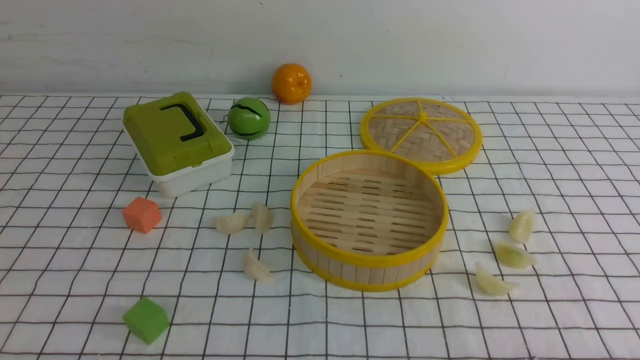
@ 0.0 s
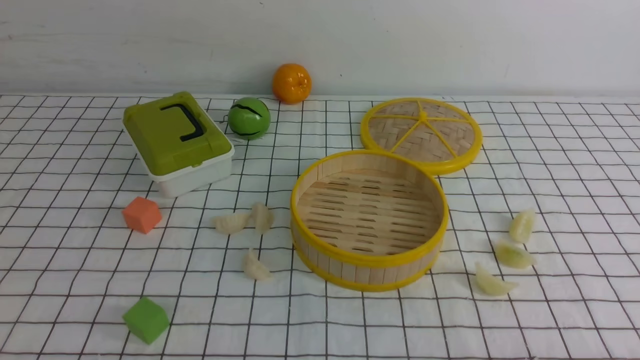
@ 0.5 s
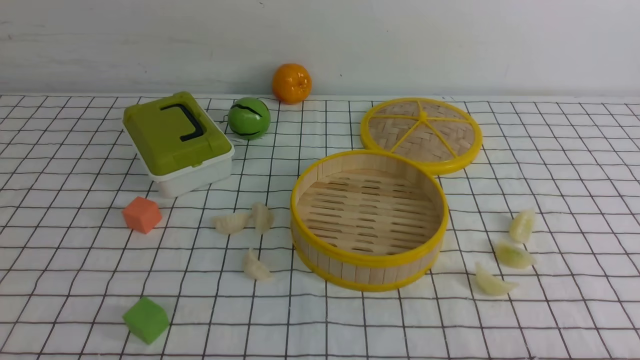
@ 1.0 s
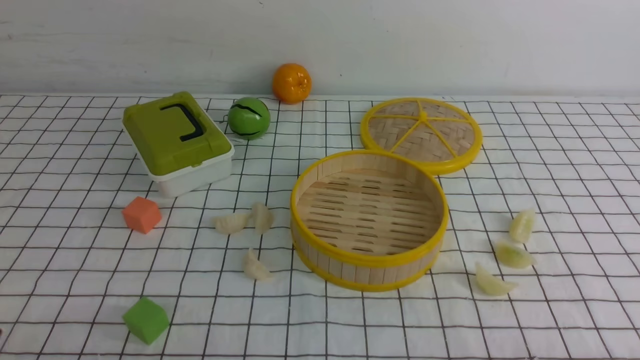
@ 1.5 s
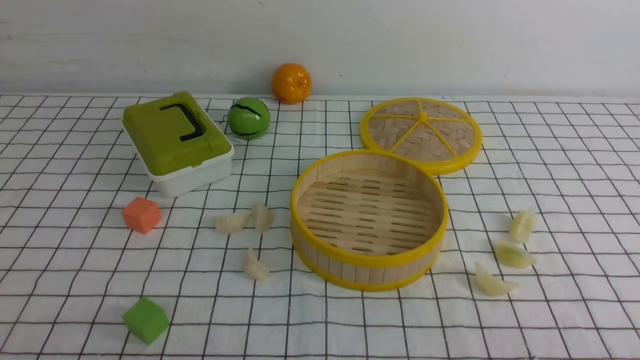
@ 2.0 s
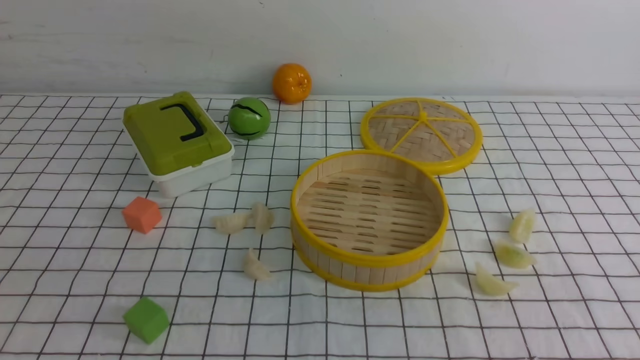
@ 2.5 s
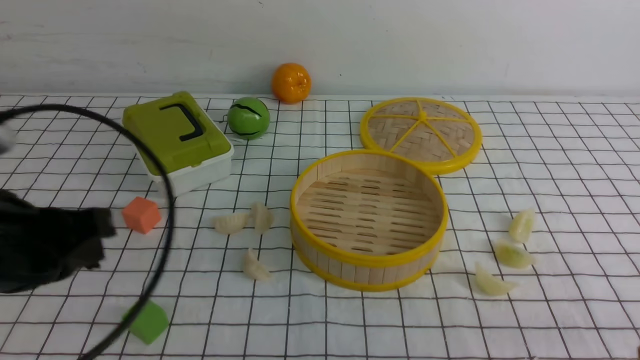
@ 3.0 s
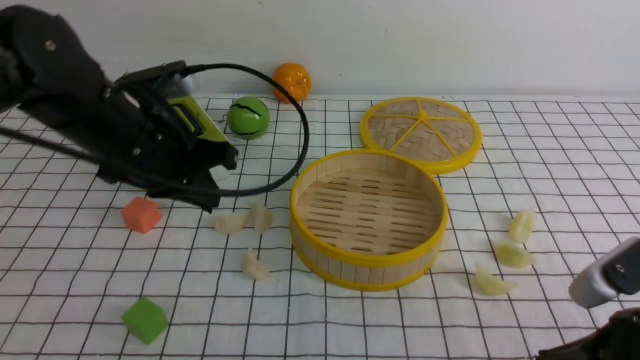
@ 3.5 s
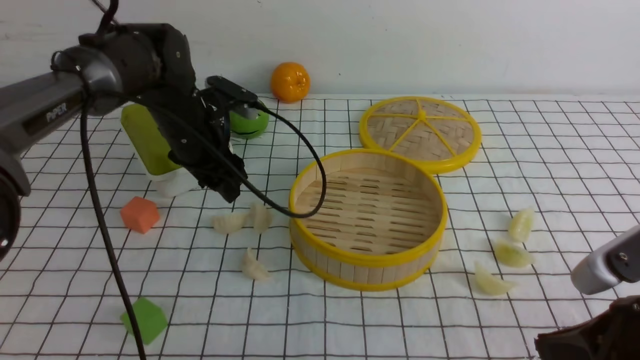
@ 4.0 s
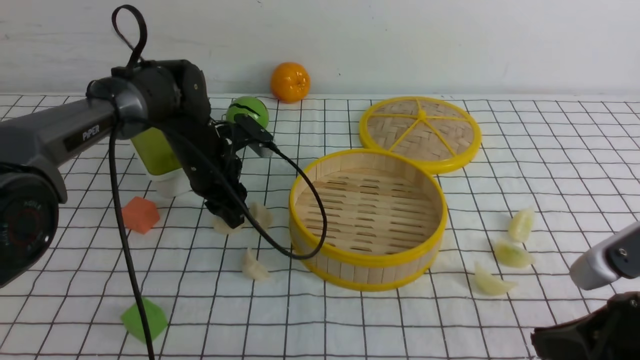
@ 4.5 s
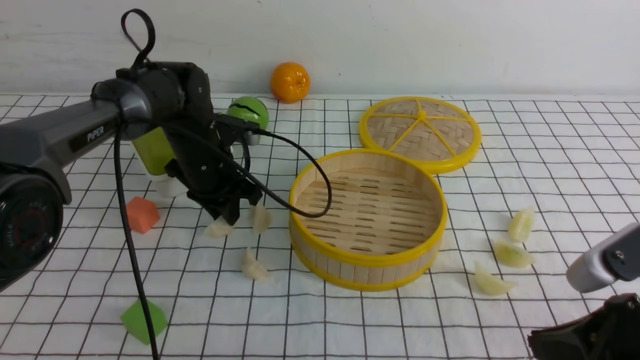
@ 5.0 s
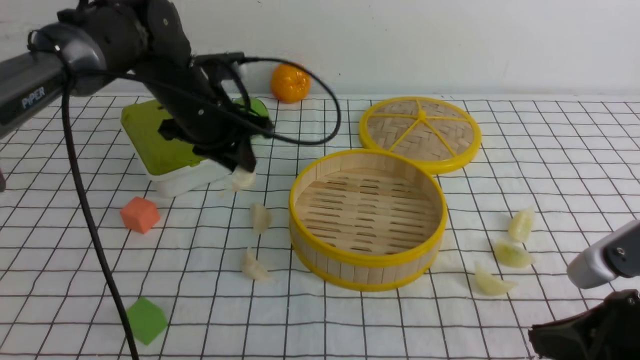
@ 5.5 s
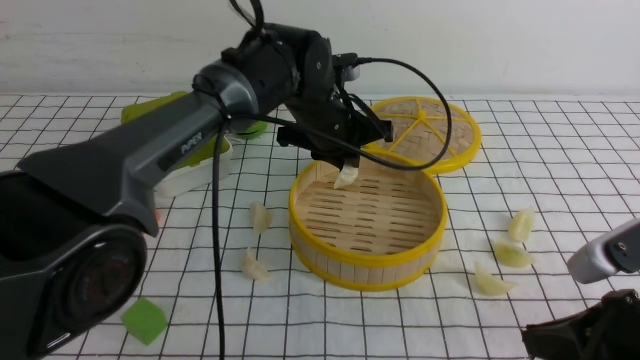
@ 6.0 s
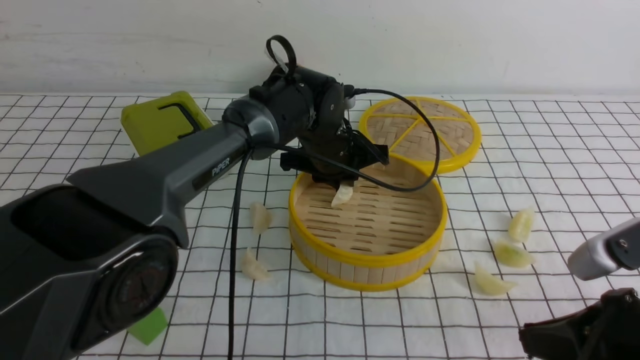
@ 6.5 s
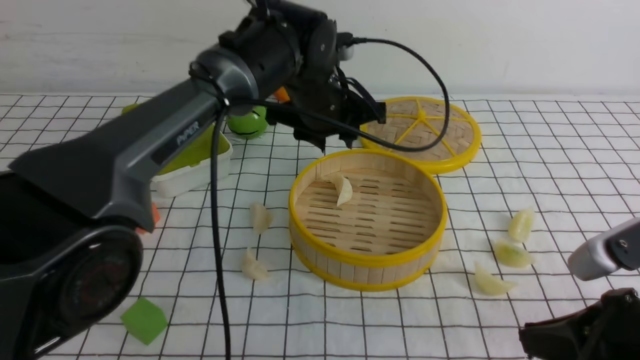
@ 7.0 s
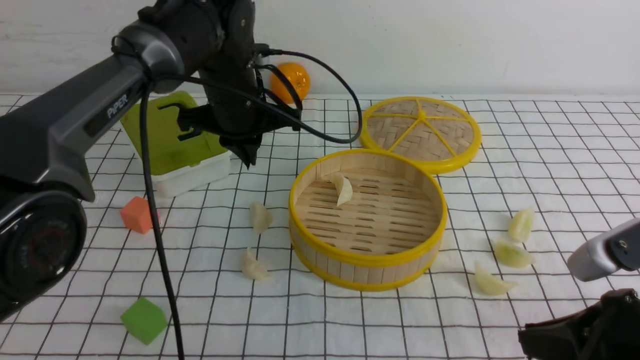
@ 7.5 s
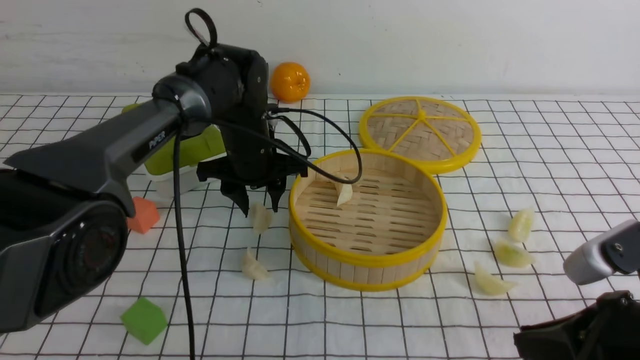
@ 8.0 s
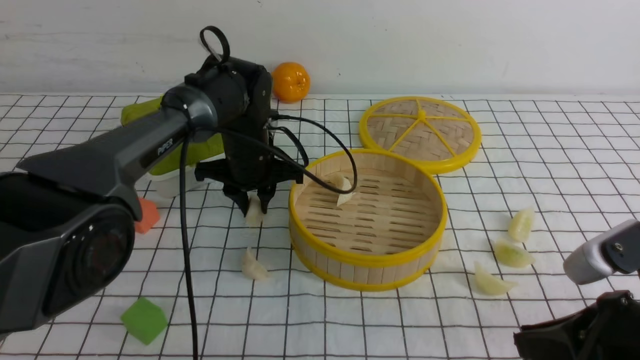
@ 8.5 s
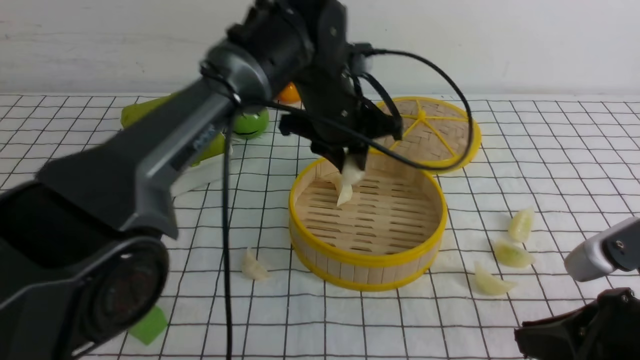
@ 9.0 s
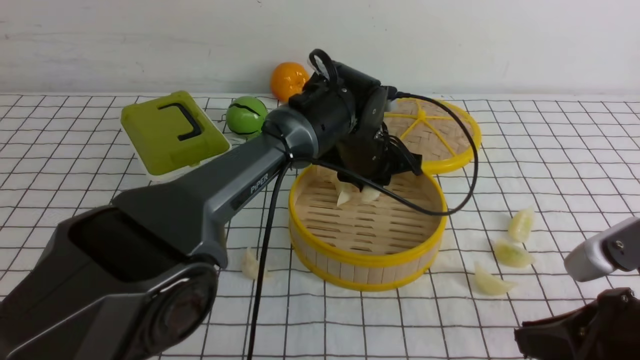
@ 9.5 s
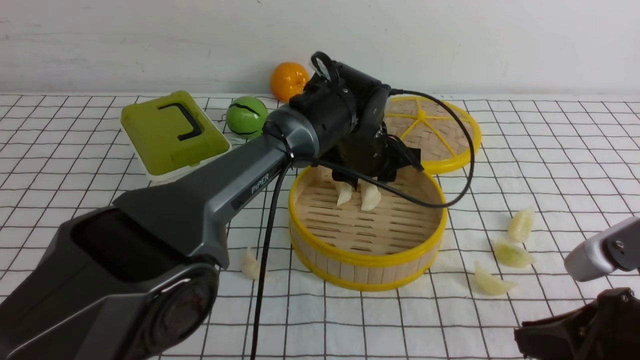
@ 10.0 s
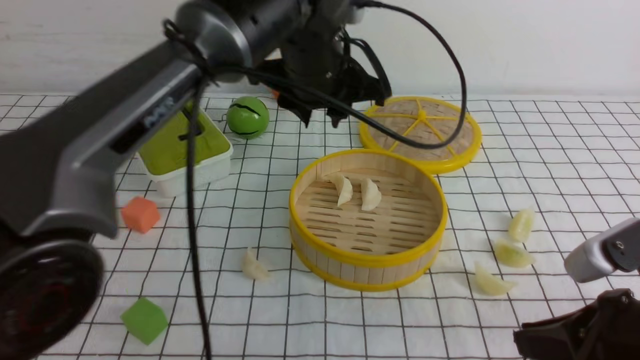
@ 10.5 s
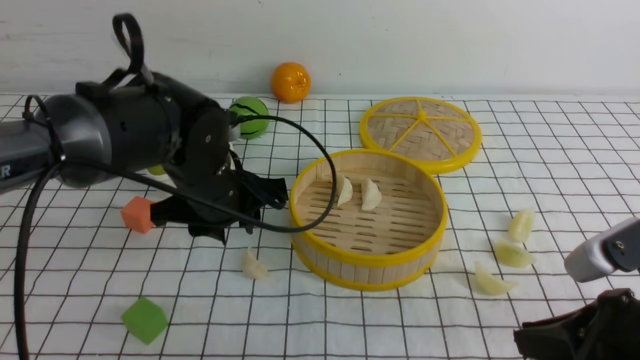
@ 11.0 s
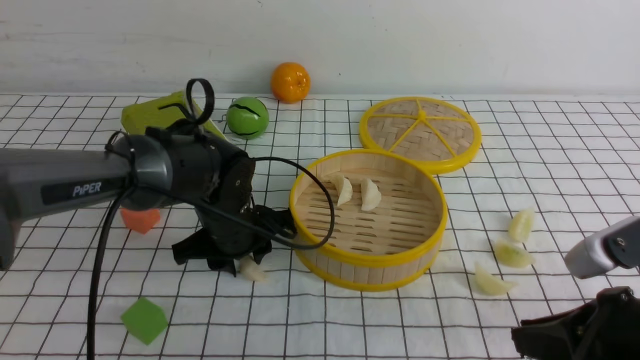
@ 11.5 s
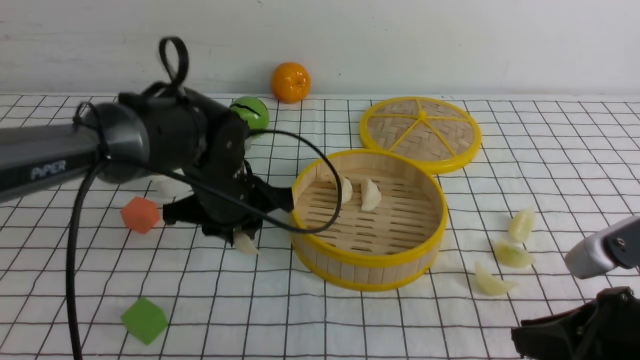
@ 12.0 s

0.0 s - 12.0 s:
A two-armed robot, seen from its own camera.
Task of the whole recording: put the dumplings into the steamer on the table with the white tablecloth.
Step, 0.0 s - 5.0 s: use the left arm to grab a dumpling.
Step, 6.0 s - 7.0 s: use the left arm to put the dumpling into the steamer.
Step, 7.5 s - 8.5 s: use the left arm to grab a dumpling.
Step, 9.0 s - 10.0 s: use the left arm to put the dumpling into the steamer.
2.0 s - 4.0 s: The left gripper shifts about 40 cm forward, and opens its fingers, while the right gripper moves forward and to the left, some 15 cm, and closes up.
4.0 s - 6.0 s: The left gripper goes some 15 cm to the right, and closes its fingers.
6.0 s - 8.0 s: The left gripper moves to the left and downward, approximately 10 cm, and opens its fingers.
8.0 s - 10.0 s: The left gripper is displaced to the right by roughly 15 cm.
10.0 s - 12.0 s: The left gripper swings up and down, some 15 cm each way, with 2 reversals, and closes up.

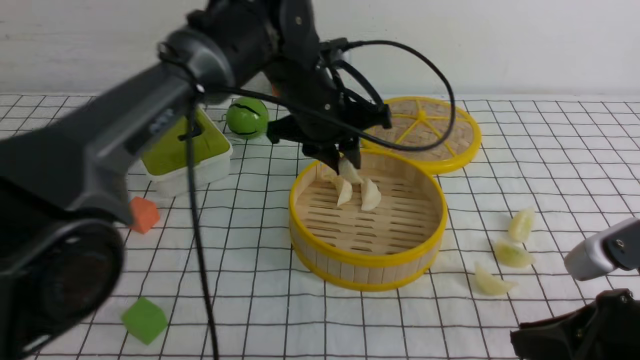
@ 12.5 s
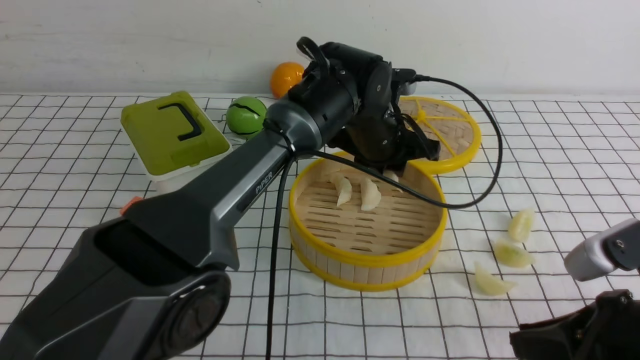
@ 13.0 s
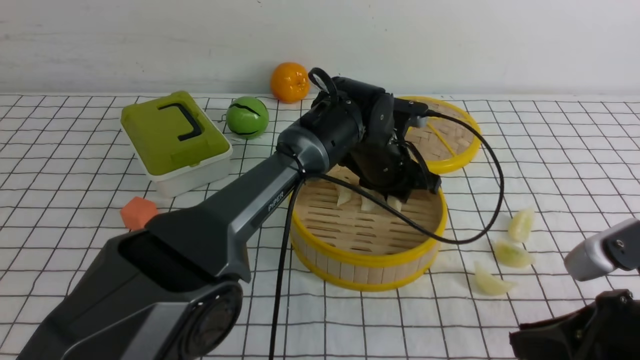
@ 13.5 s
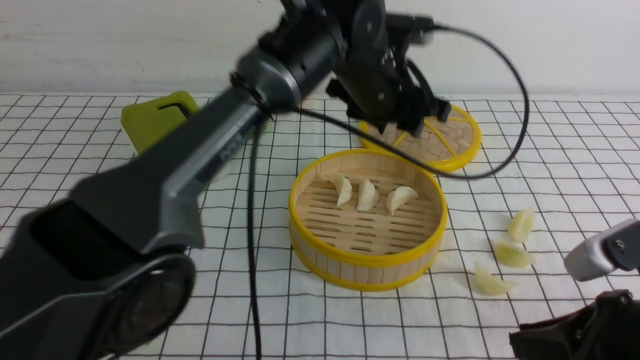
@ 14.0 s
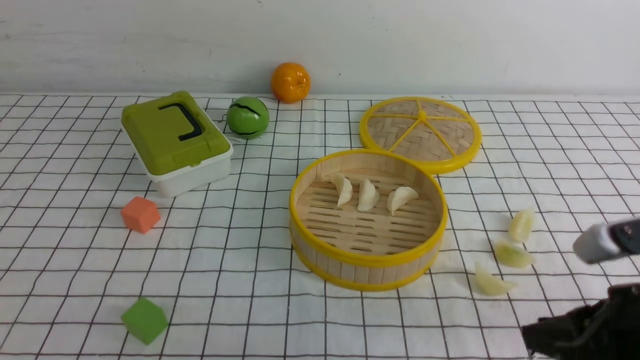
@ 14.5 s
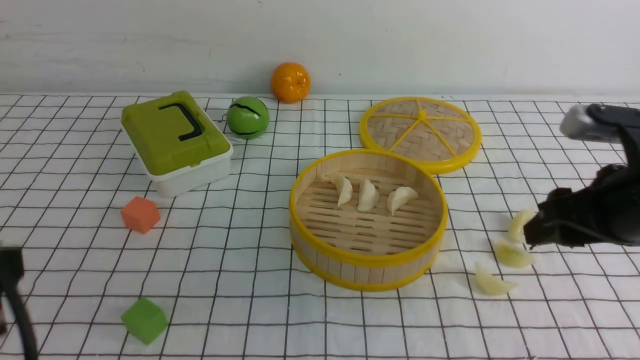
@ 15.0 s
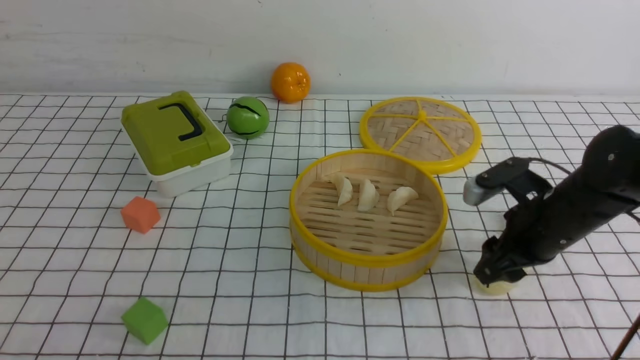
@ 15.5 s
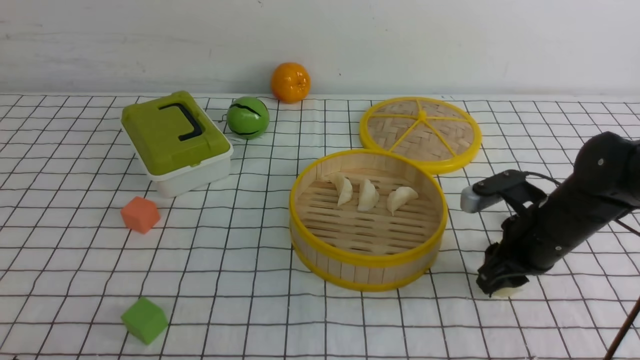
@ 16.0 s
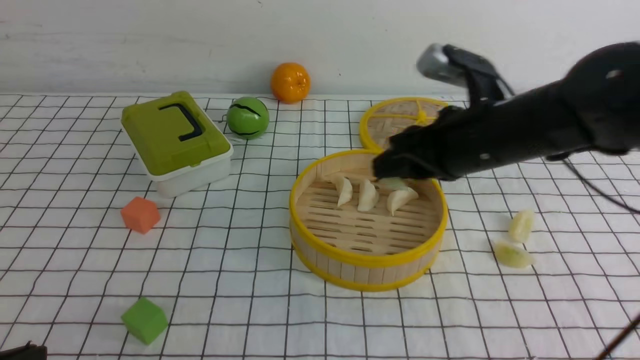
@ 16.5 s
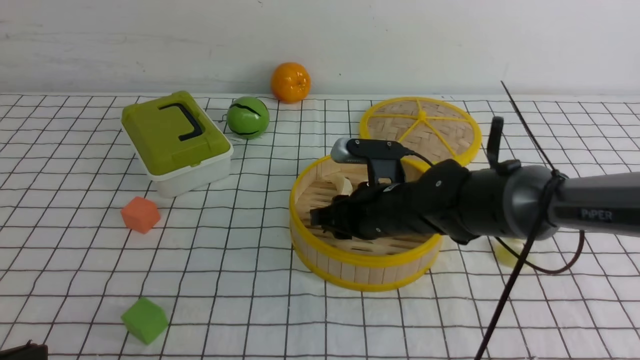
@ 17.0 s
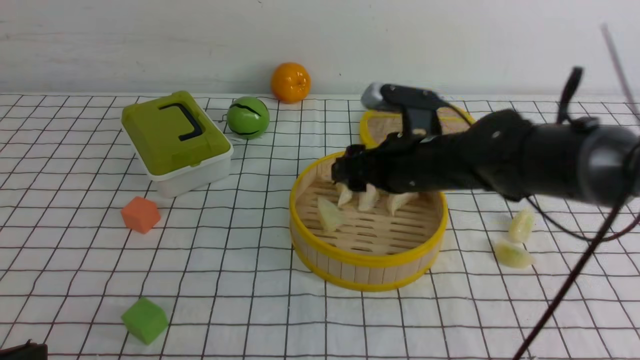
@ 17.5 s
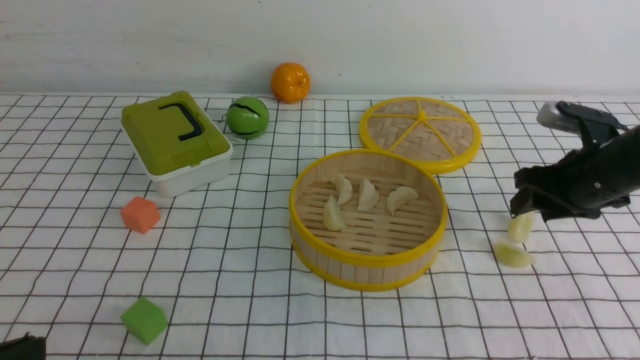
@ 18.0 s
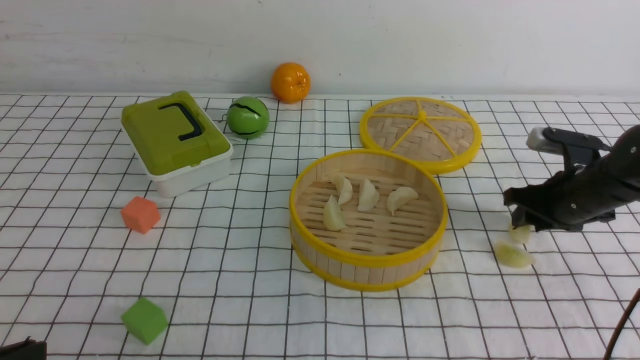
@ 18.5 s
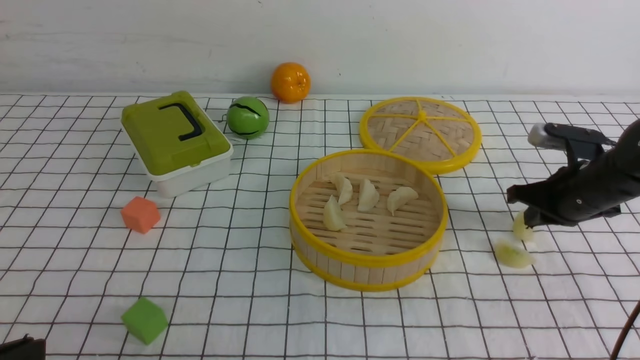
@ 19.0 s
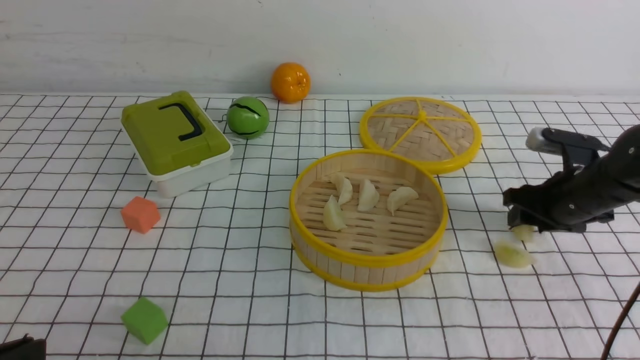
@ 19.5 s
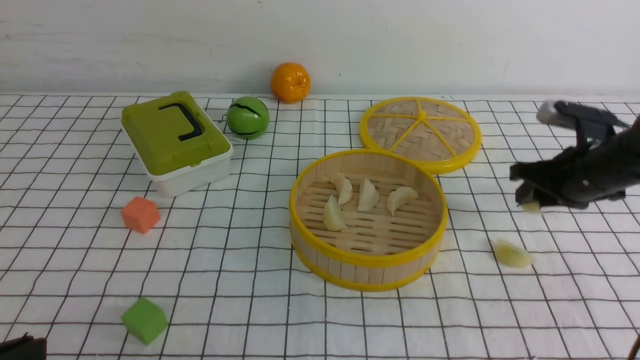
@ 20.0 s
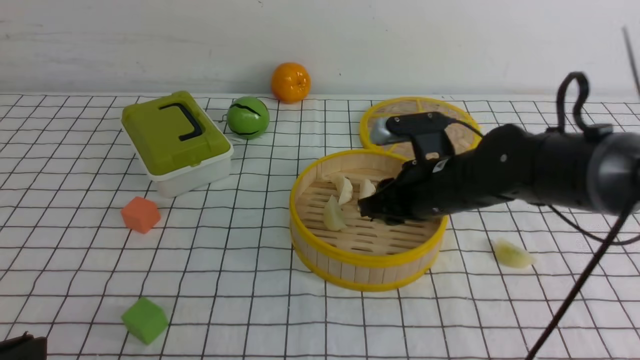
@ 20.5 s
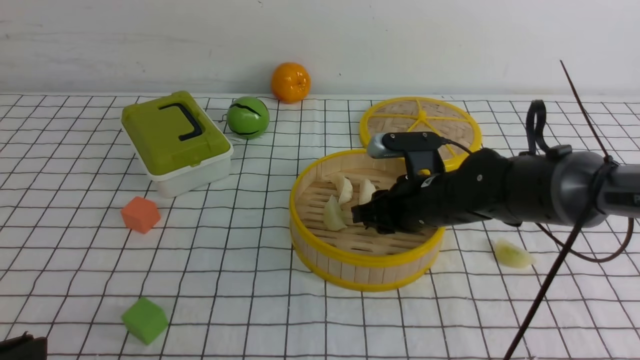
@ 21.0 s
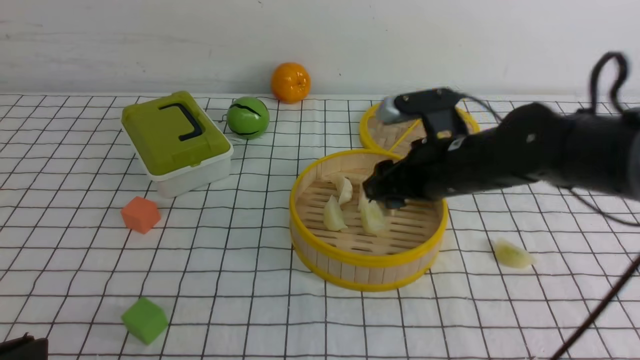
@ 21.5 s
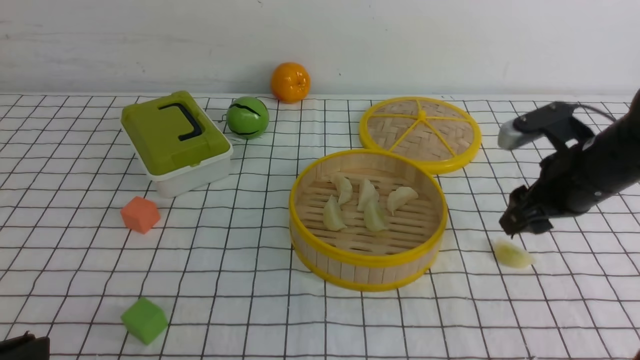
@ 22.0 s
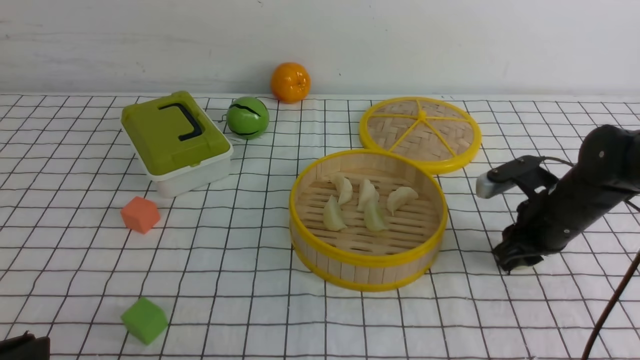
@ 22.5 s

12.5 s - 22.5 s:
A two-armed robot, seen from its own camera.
Task of the whole recording: put the dumplings into the steamer on the table with the white tablecloth.
Step, 12.5 s - 14.0 s: use the left arm to put the dumpling into the steamer.
Step, 14.5 s - 16.0 s: use the right arm to grab a dumpling.
Step, 16.5 s - 17.5 s: use the right arm to put the dumpling into the steamer.
Step, 18.0 s - 20.0 s: use the right arm to grab a dumpling.
Step, 20.5 s - 21.5 s: use the right arm to put the dumpling into the steamer.
12.5 s - 14.5 s: The left gripper travels upward, backward and to the left by roughly 35 cm, and closes up.
14.5 s - 16.5 s: The right gripper goes about 20 cm forward and to the left, and opens, then closes again; the left gripper shifts roughly 35 cm downward and backward.
16.5 s - 18.5 s: The right gripper shifts about 20 cm to the right and downward, and opens, then closes again.
18.5 s - 20.5 s: The right gripper moves to the left, roughly 20 cm, and closes, then reopens.
20.5 s - 22.5 s: The right gripper travels to the right by some 15 cm, and opens and closes again.
